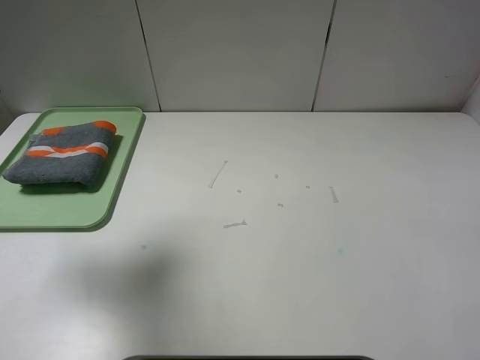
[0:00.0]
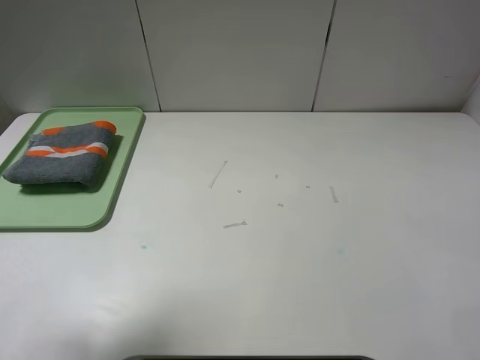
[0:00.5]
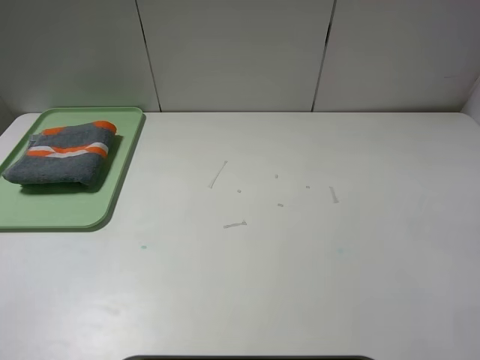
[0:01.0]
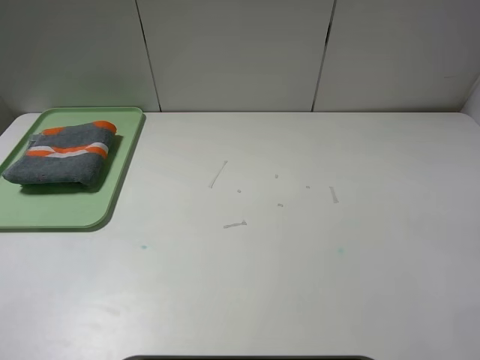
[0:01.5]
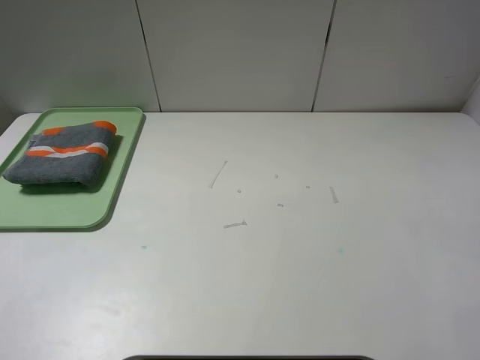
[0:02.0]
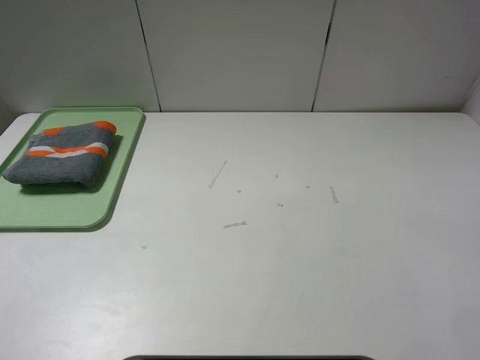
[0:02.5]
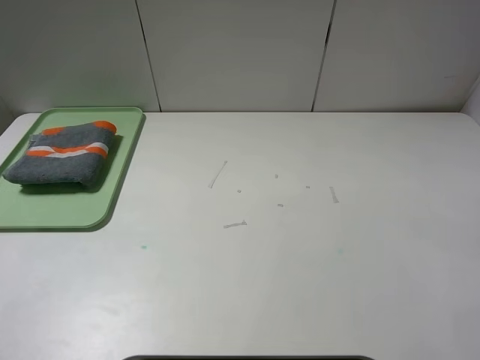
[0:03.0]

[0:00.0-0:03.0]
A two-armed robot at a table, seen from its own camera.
0:00.0 to 0:01.5: The left gripper shifts some 25 cm backward.
